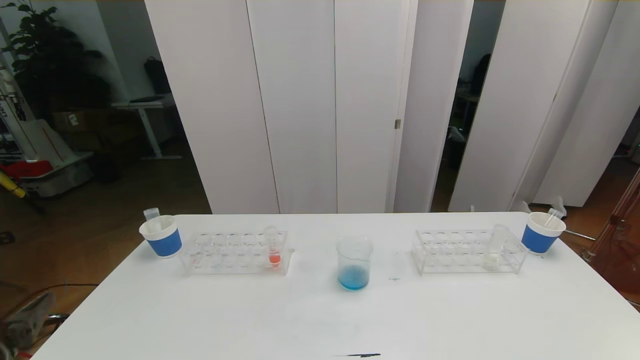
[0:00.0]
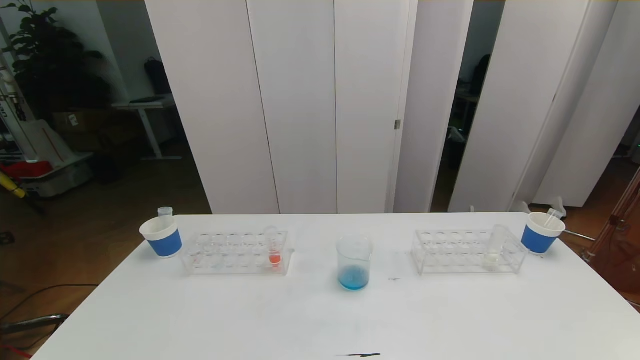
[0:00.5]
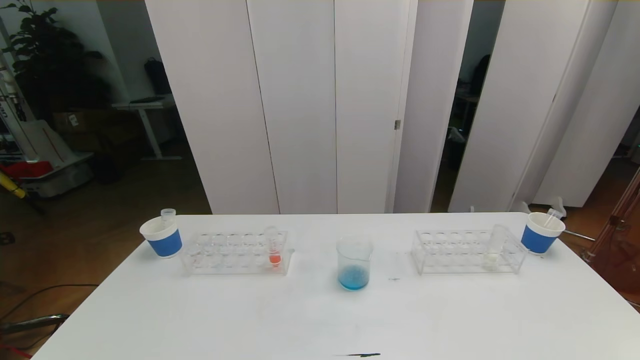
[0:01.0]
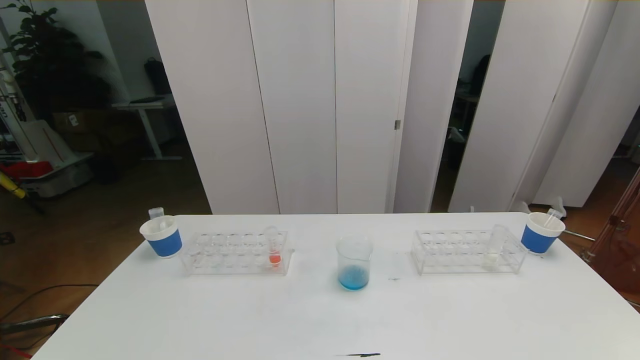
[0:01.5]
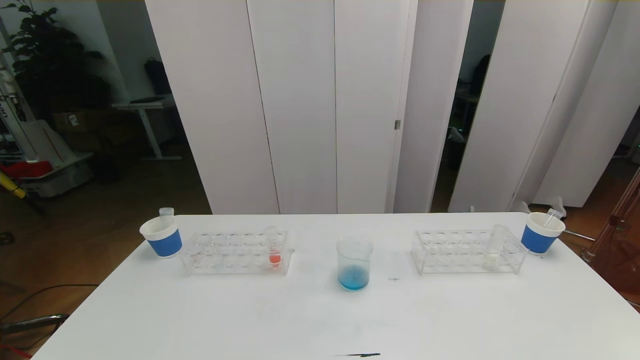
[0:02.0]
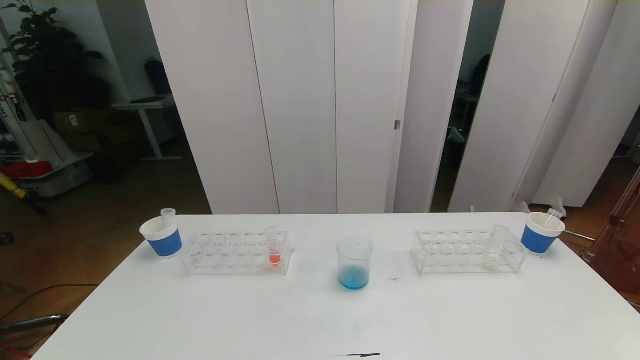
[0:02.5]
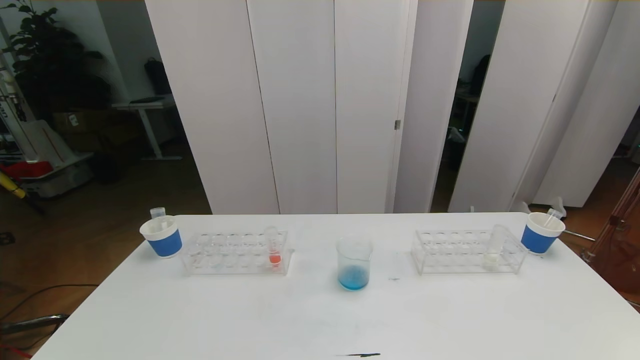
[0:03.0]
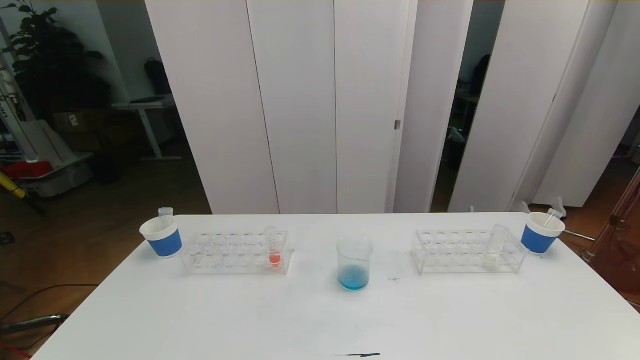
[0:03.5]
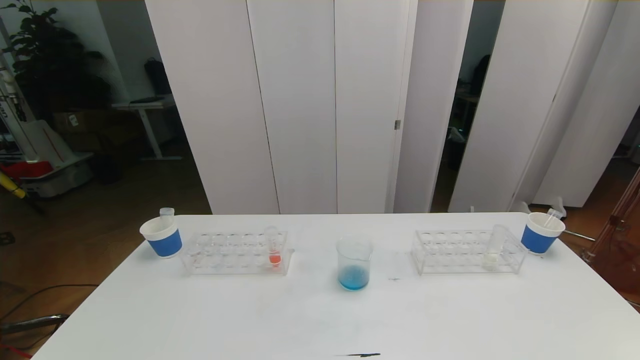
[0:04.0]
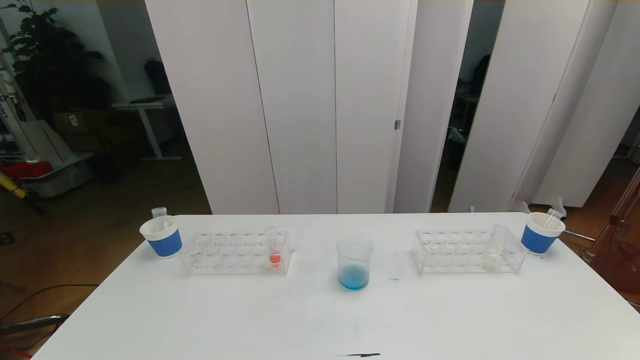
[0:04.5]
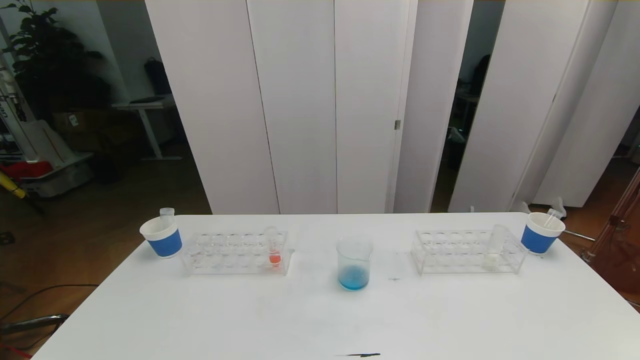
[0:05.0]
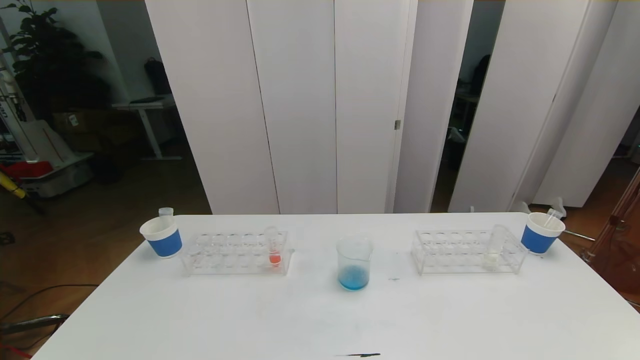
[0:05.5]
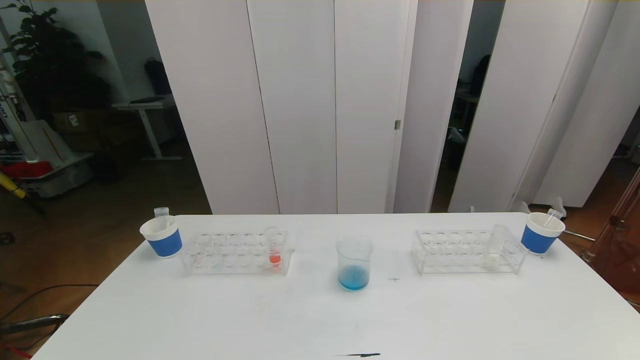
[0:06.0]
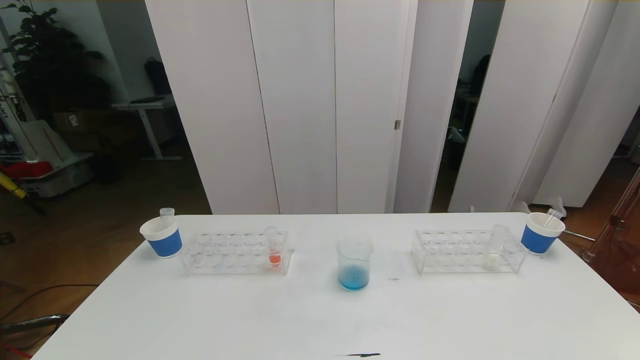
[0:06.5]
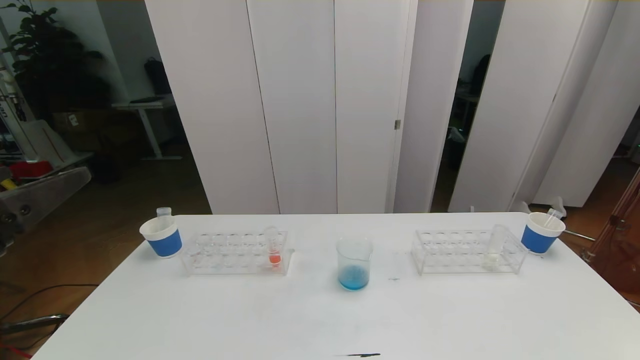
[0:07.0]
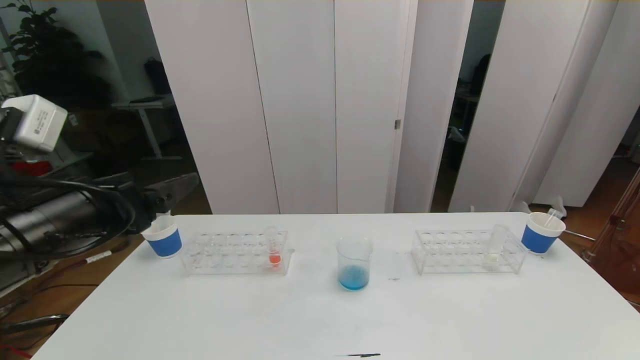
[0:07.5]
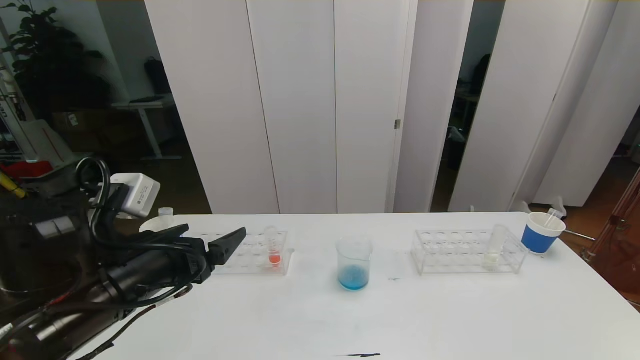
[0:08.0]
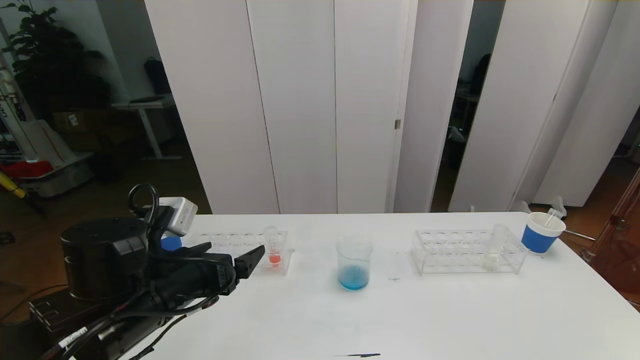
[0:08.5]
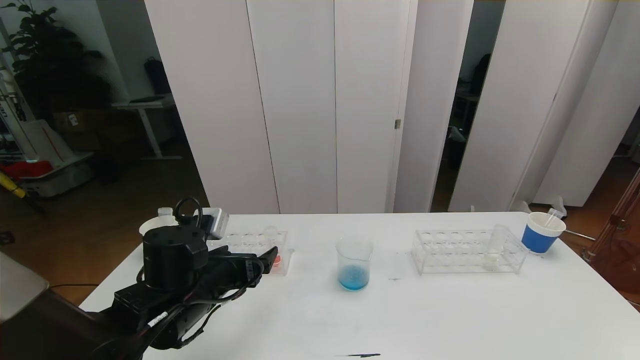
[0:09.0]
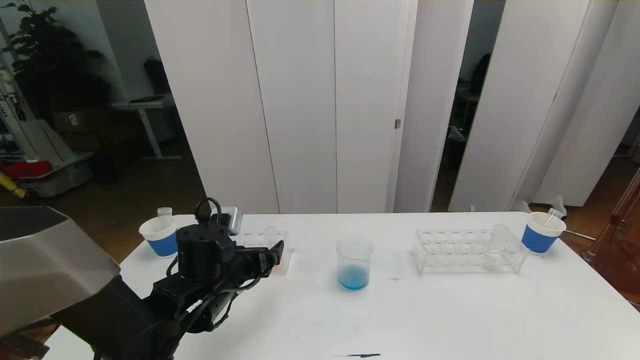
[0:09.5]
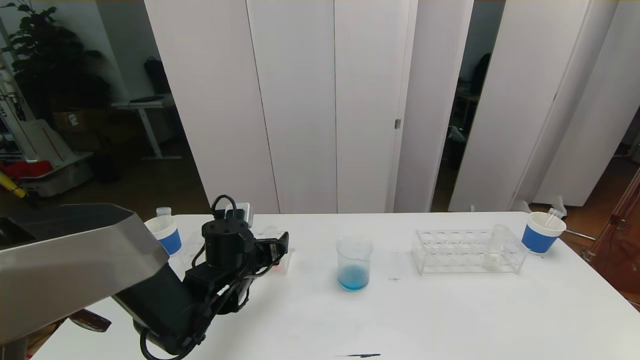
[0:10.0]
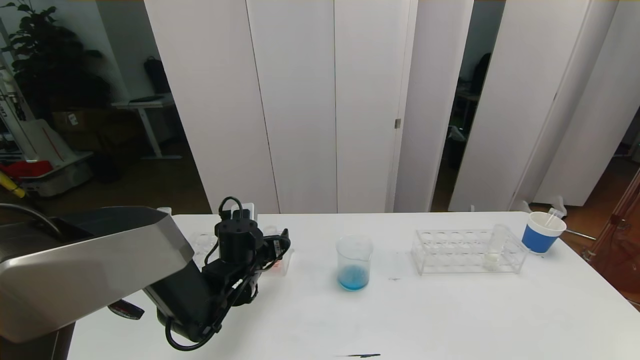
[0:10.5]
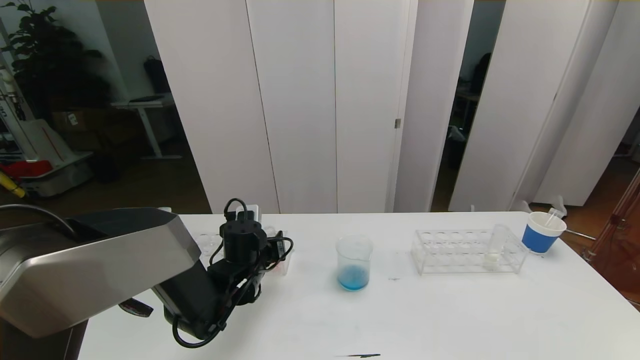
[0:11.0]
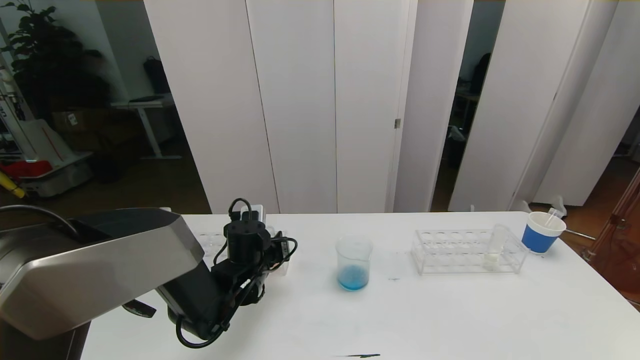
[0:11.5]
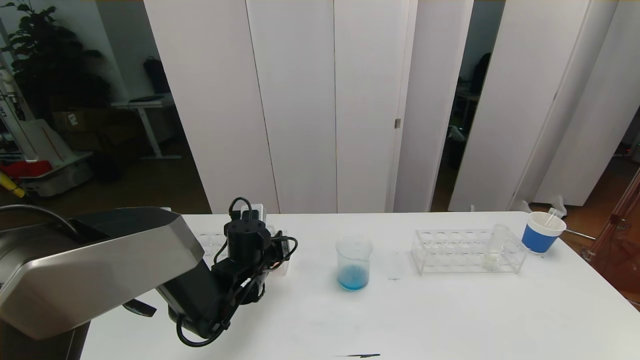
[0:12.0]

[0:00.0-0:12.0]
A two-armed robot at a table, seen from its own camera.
Task of the whole recording: pick up the test tube with red pigment the test tube with blue pigment and the test tube with white pigment by grippers and pour them into the beaker.
0:02.0 to 0:04.0: Neither gripper changes place.
0:06.0 to 0:08.0: The left gripper moves forward, roughly 25 cm.
0:08.0 to 0:10.0: The left gripper shifts about 20 cm forward, downward and to the right.
0:10.0 to 0:12.0: The left gripper closes its fingers.

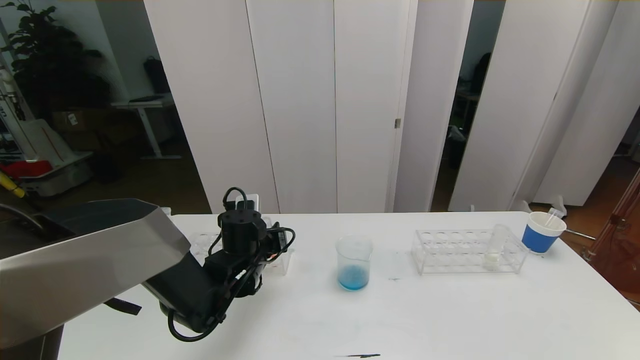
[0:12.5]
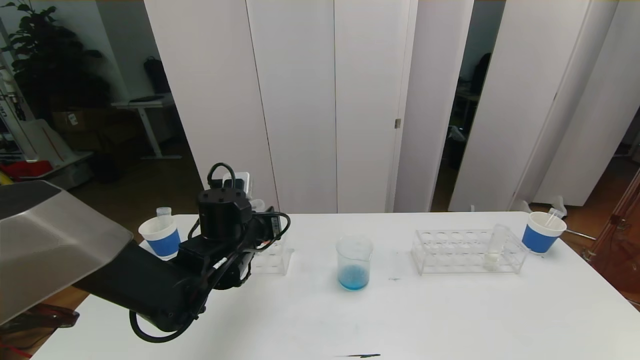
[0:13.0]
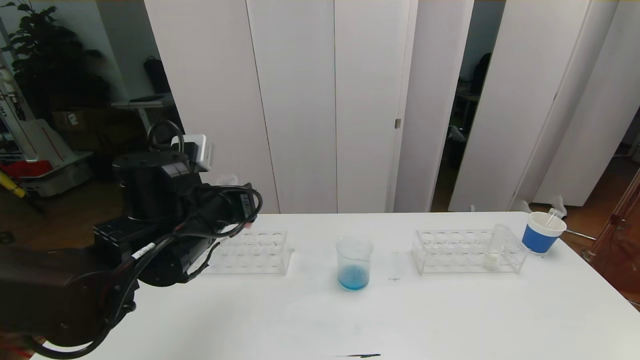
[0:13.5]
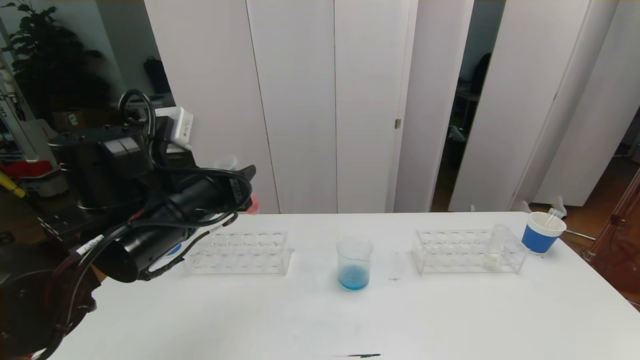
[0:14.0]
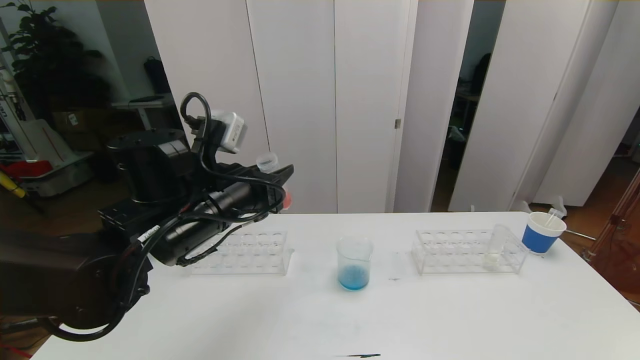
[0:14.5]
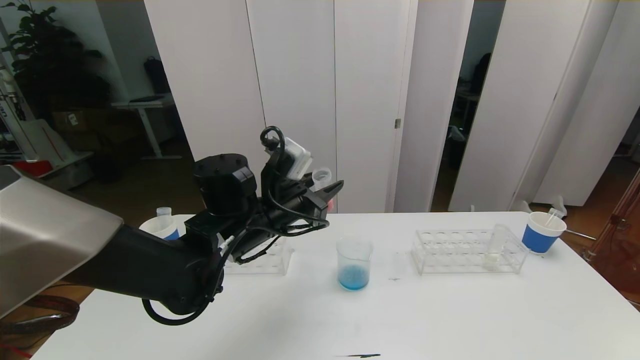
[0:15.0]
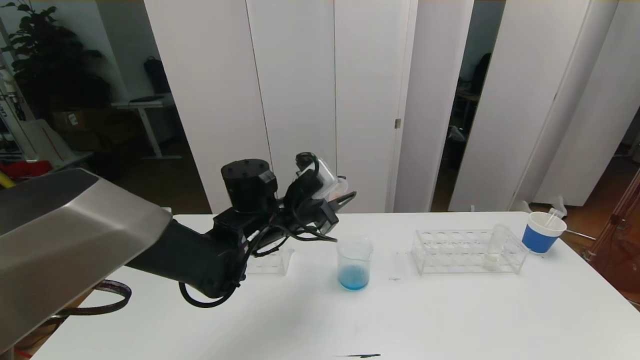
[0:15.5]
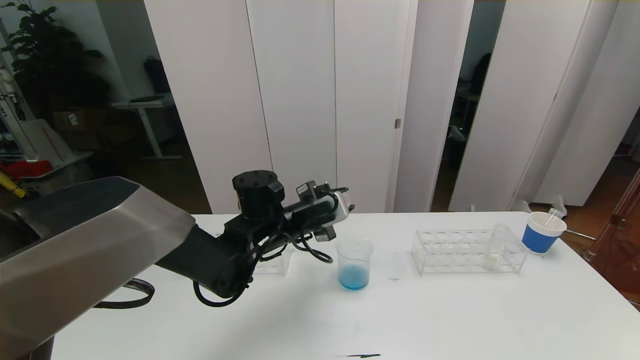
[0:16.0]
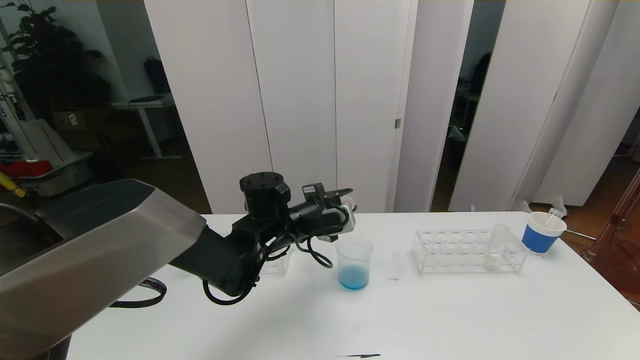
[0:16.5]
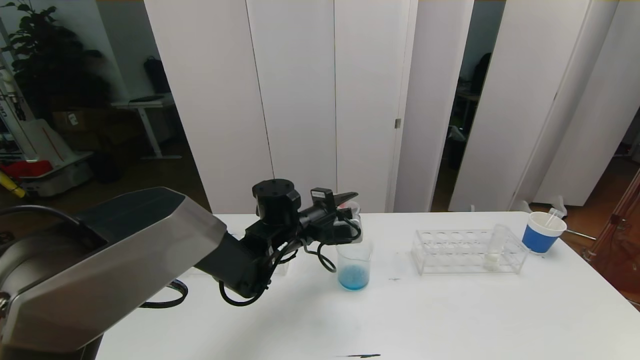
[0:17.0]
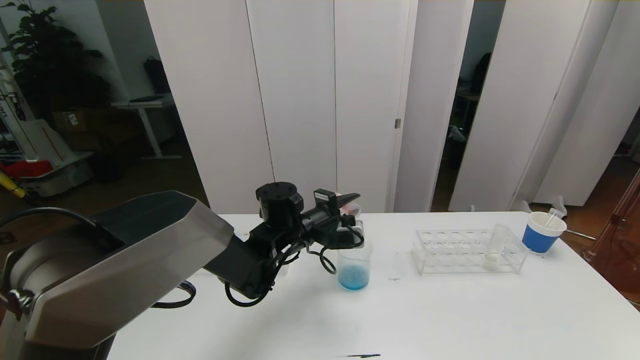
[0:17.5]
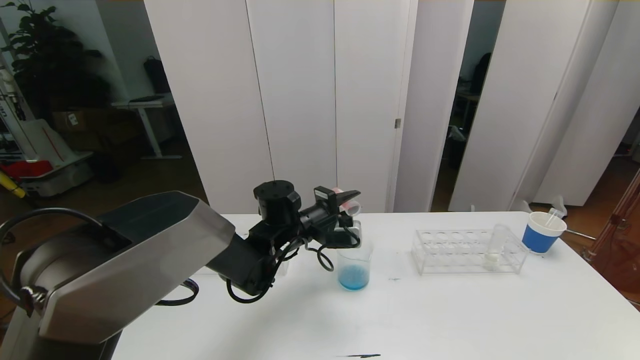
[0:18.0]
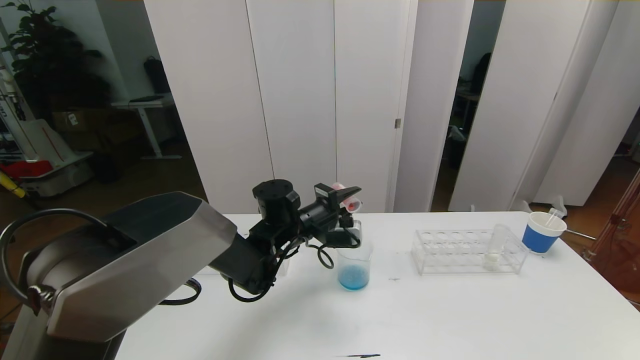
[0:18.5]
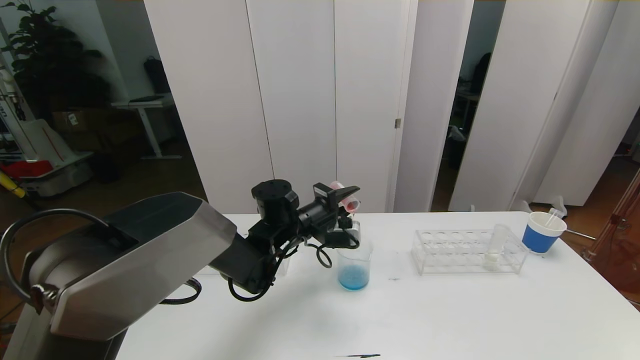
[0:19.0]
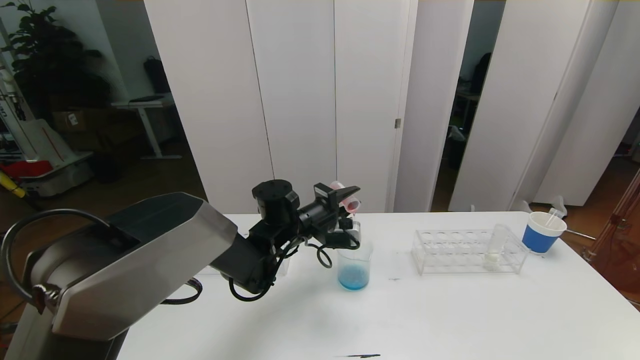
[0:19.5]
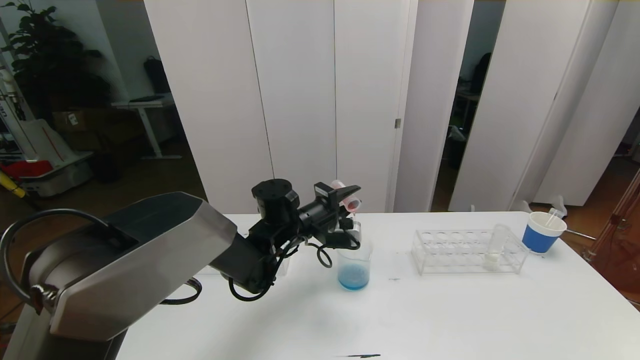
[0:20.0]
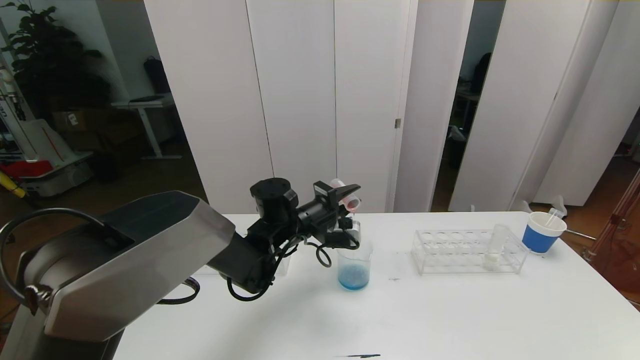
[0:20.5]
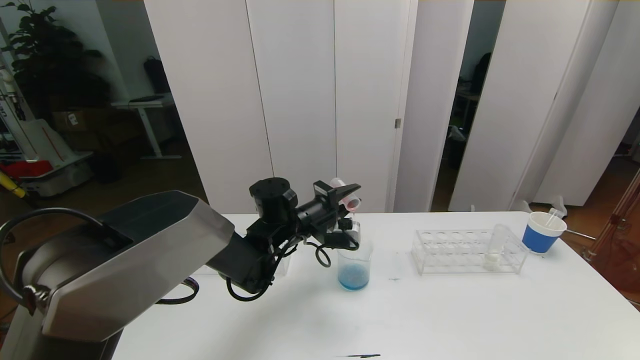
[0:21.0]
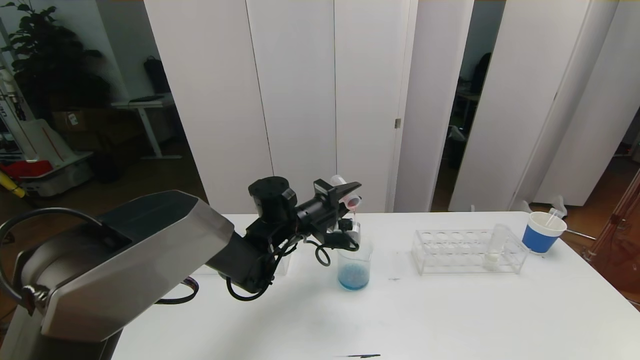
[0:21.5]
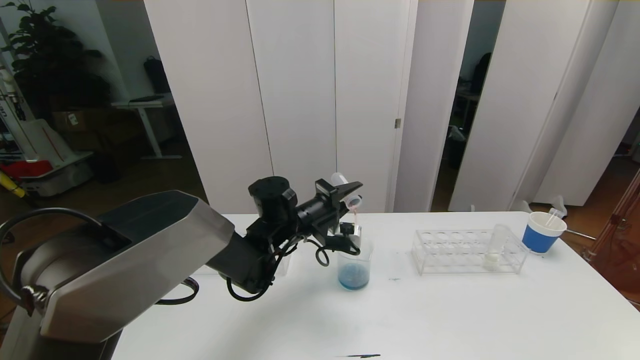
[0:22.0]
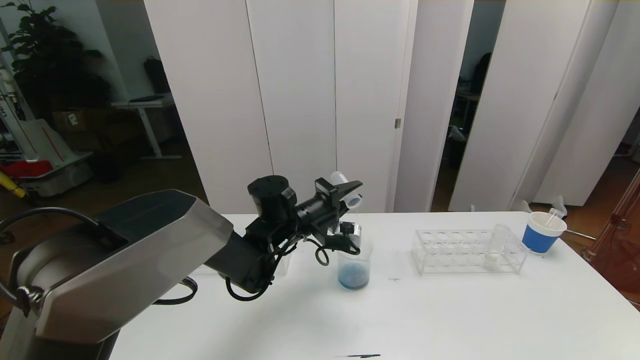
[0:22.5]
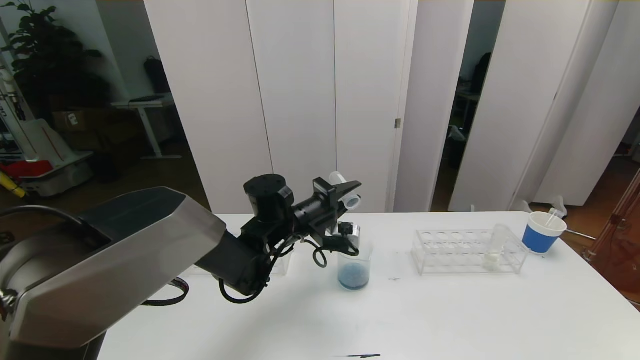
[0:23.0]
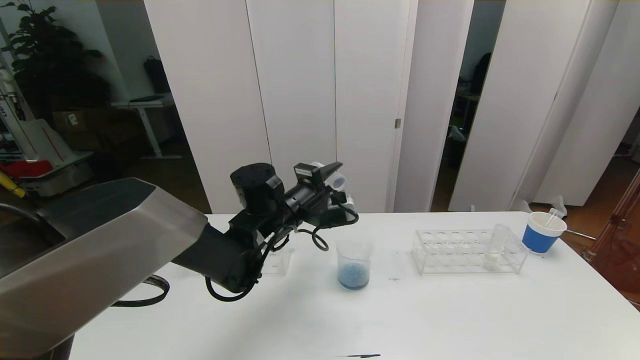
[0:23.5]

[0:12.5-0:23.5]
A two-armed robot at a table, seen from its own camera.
Task of the whole recording: pick up the test tube with red pigment the test tube with blue pigment and the test tube with white pigment by grippers and pour them into the beaker.
0:12.5 to 0:14.5: The left gripper shifts approximately 15 cm upward and backward.
0:14.5 to 0:16.0: The left gripper is displaced downward, forward and to the right by approximately 15 cm.
0:18.0 to 0:20.0: The grippers move only a little.
0:20.0 to 0:21.5: Neither gripper changes place.
0:21.5 to 0:23.5: There are only small adjustments of the grippers.
